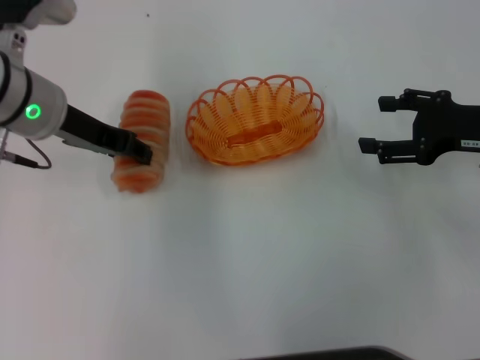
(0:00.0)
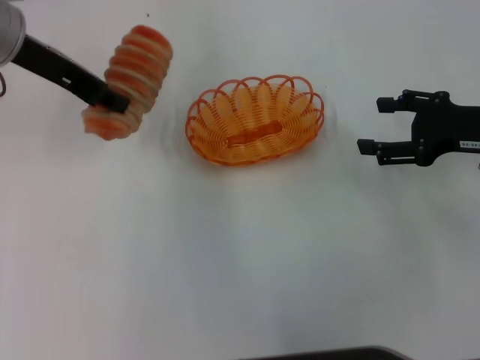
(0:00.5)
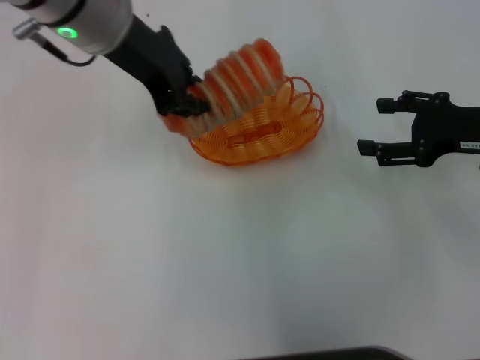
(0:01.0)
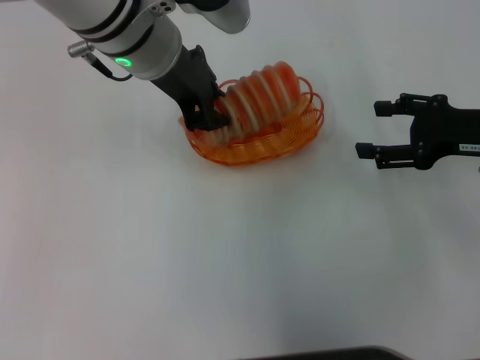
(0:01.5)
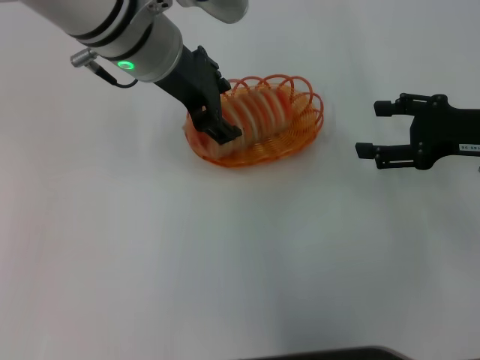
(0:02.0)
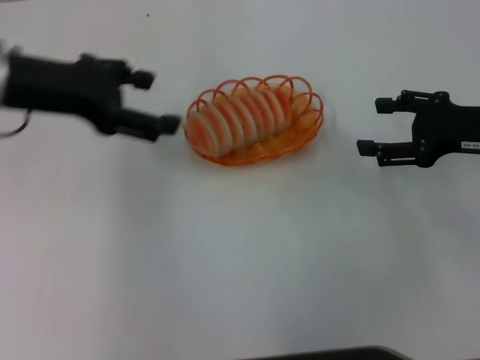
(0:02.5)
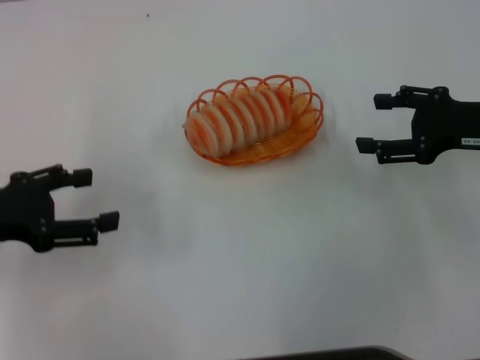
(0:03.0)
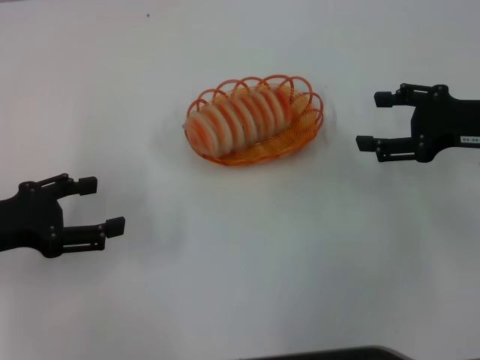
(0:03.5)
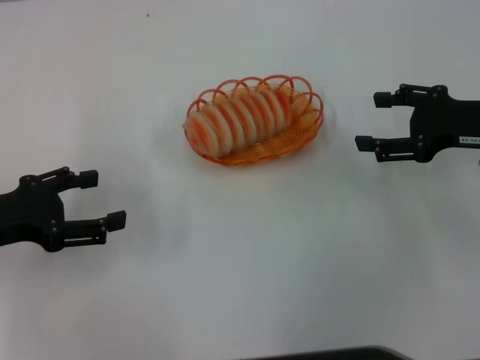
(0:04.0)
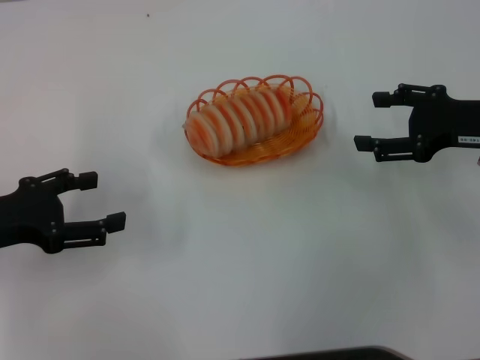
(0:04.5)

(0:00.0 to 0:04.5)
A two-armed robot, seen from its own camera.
Step, 0:00.5 - 0:02.0: Place the long bread into the basket with the left gripper.
0:00.0 - 0:02.0: The left gripper shifts approximately 10 cm to the right, and closes and opens again.
0:02.0 - 0:04.5: The left gripper moves to the left, backward and downward, roughly 30 cm, and opens its fingers.
